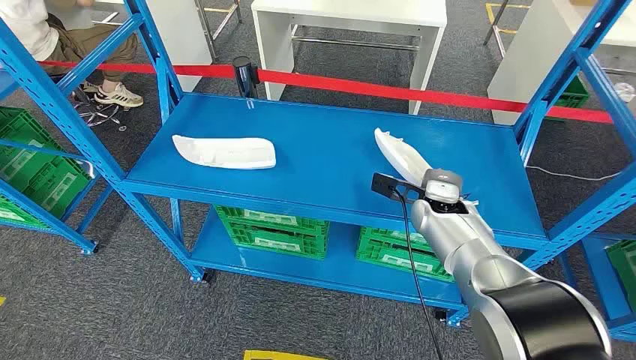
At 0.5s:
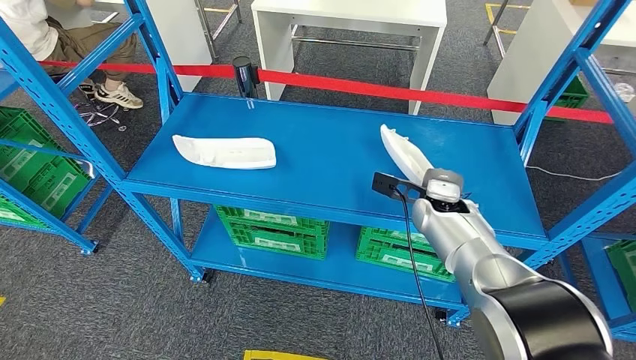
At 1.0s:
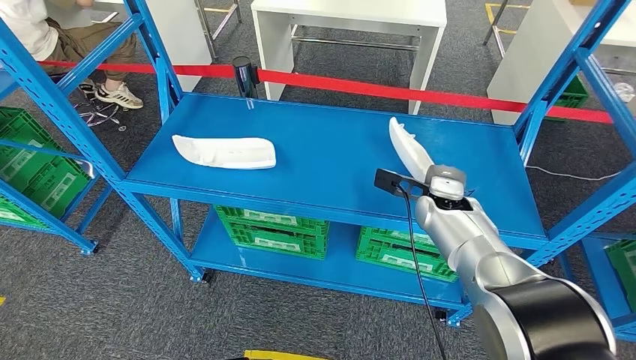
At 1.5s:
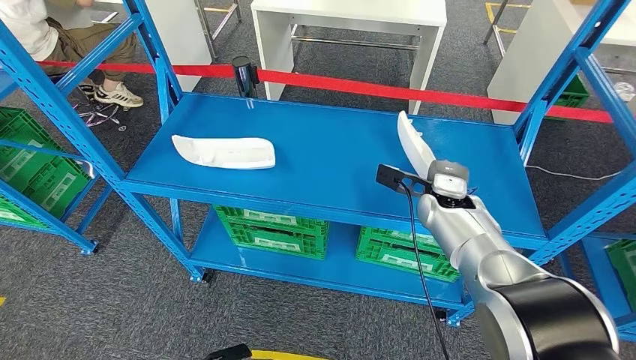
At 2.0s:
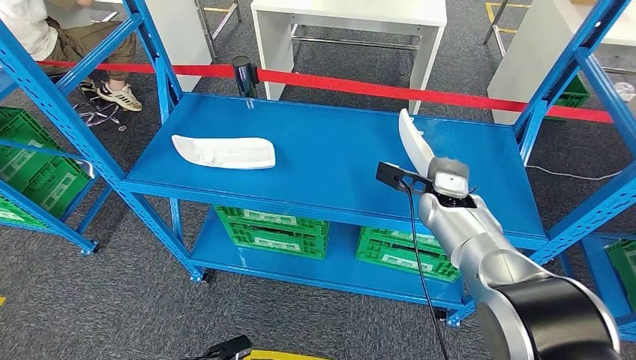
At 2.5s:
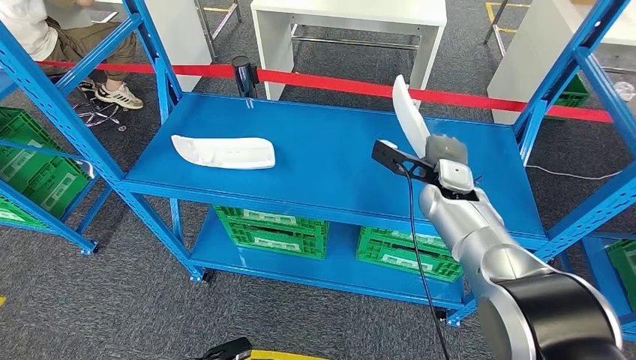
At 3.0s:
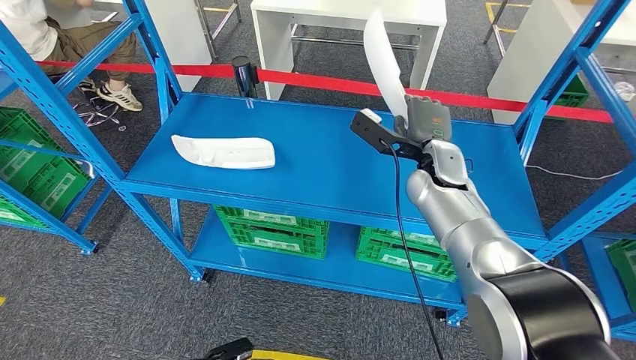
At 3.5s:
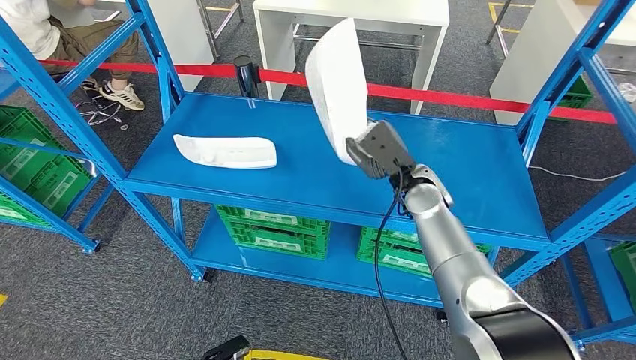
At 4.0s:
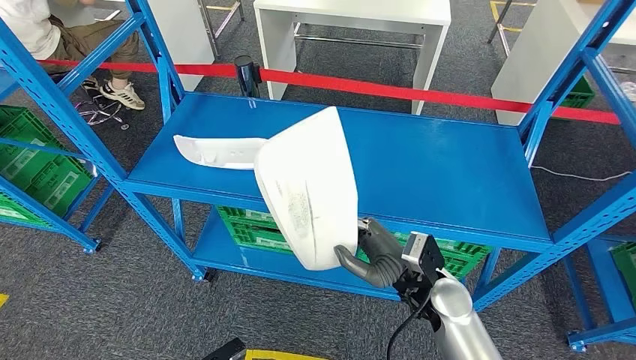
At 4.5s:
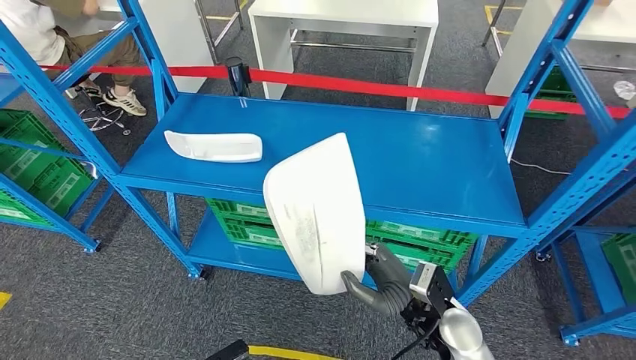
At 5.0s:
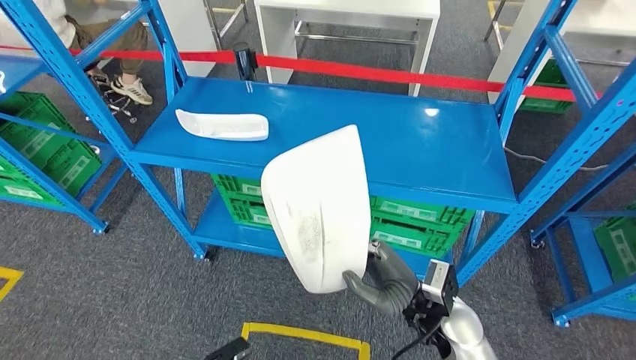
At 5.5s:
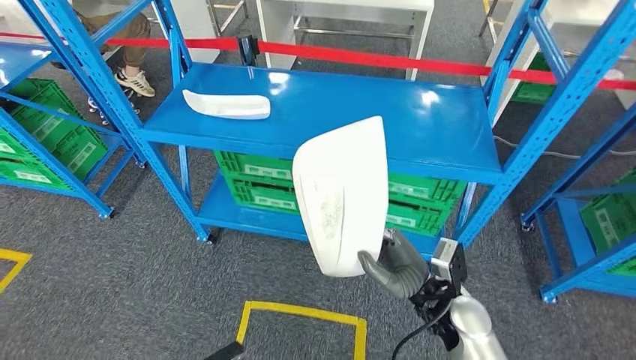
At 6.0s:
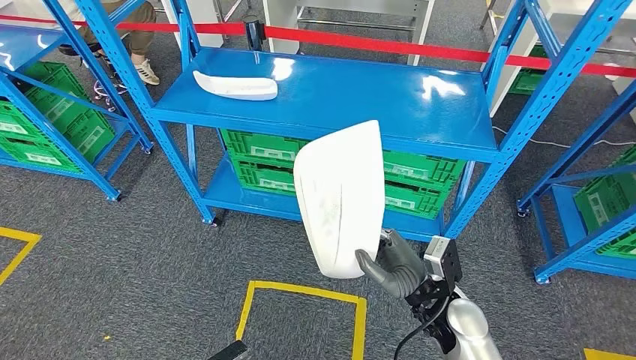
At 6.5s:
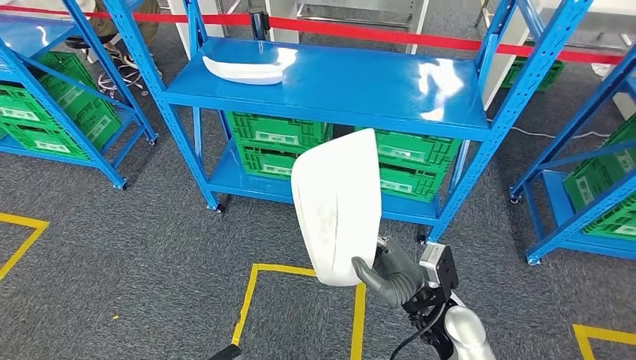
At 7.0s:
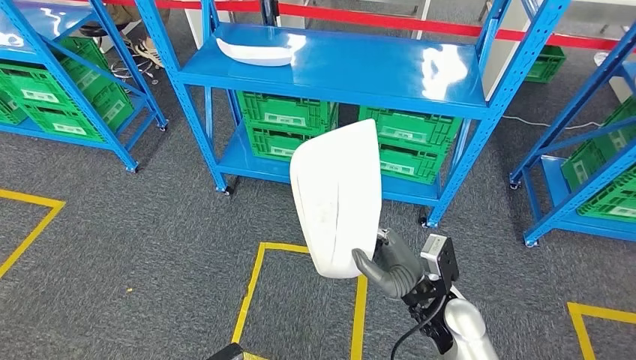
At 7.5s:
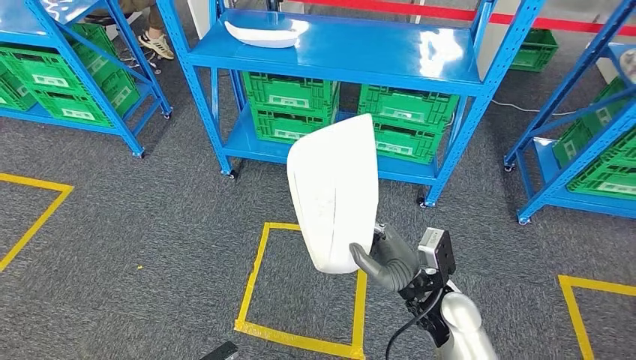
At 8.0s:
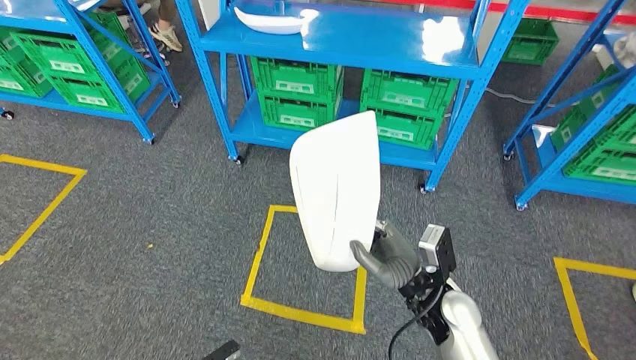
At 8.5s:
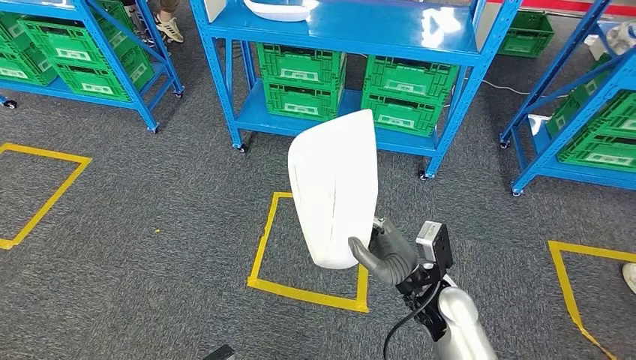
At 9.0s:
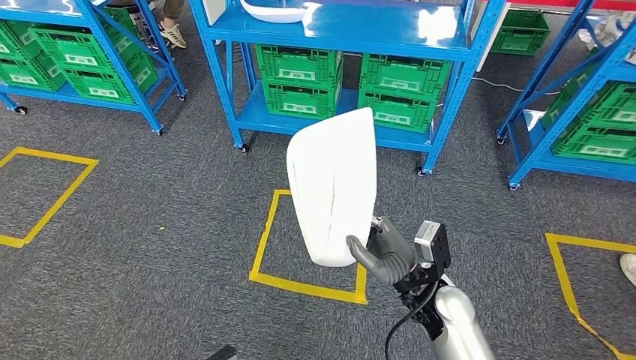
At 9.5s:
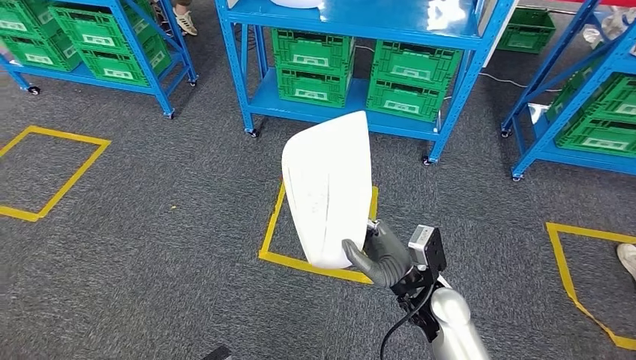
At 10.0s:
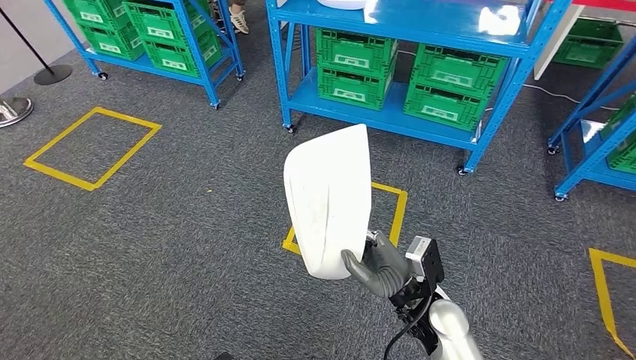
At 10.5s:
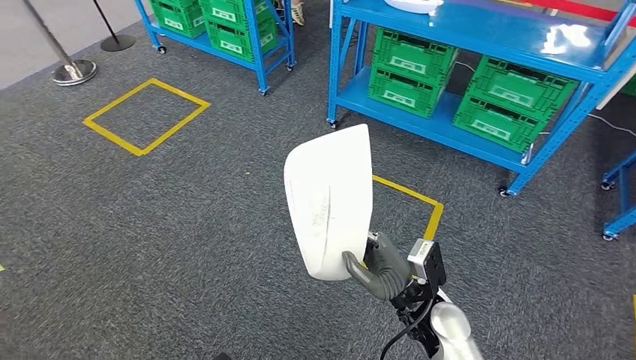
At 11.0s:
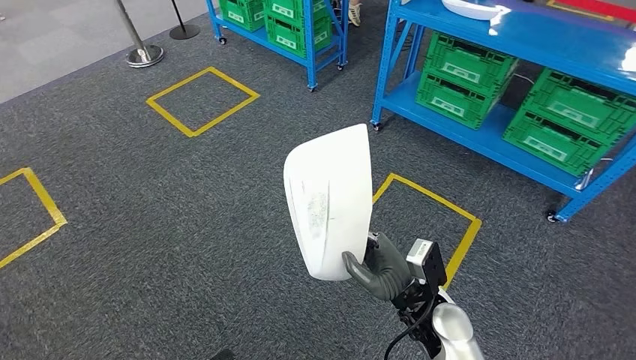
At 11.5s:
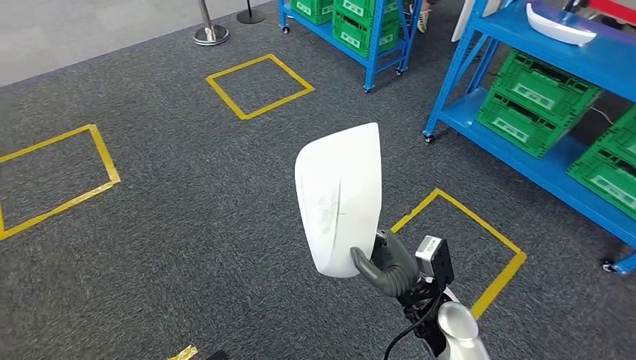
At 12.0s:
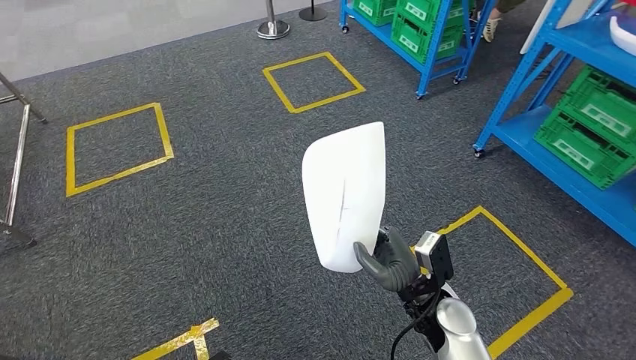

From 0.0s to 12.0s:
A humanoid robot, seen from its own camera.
Step, from 0.0s to 3.5s: Pick up the small component from the shelf.

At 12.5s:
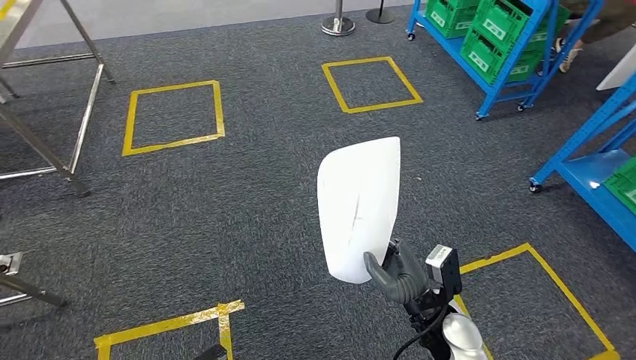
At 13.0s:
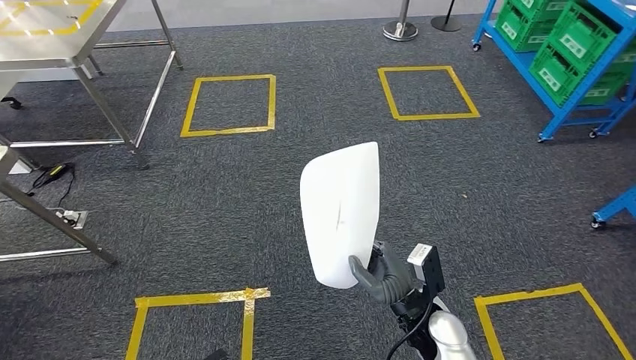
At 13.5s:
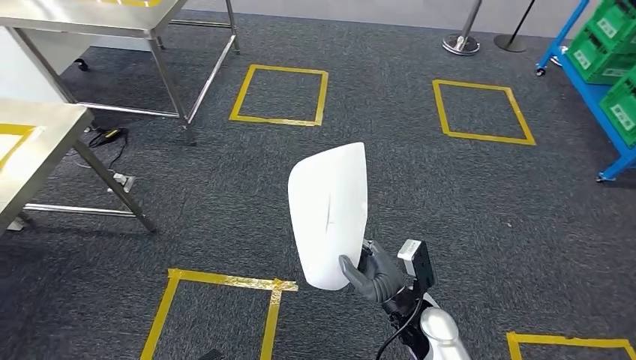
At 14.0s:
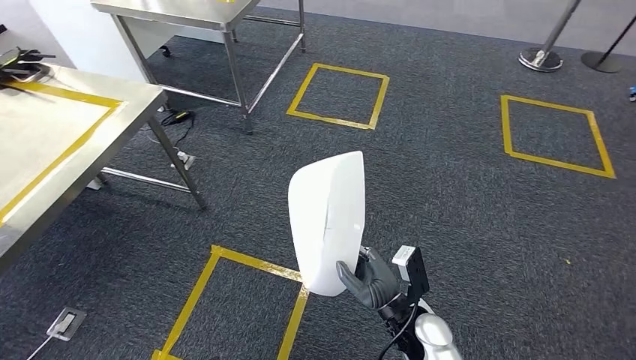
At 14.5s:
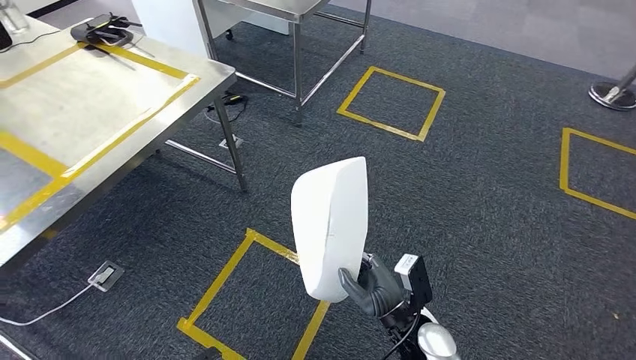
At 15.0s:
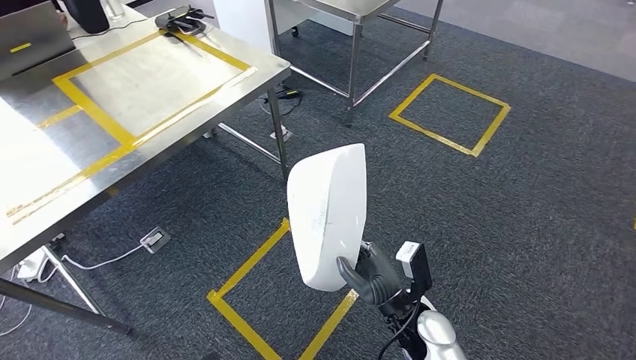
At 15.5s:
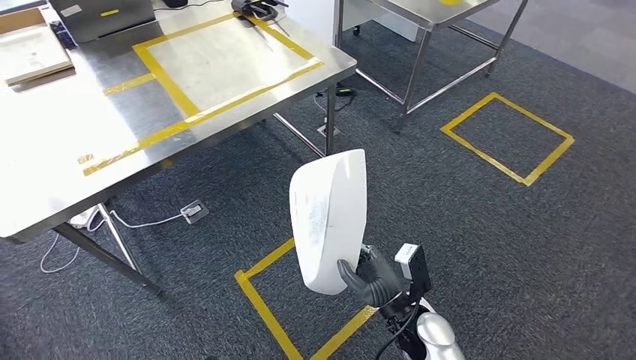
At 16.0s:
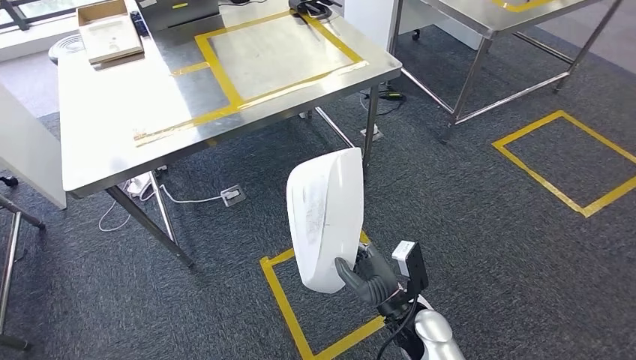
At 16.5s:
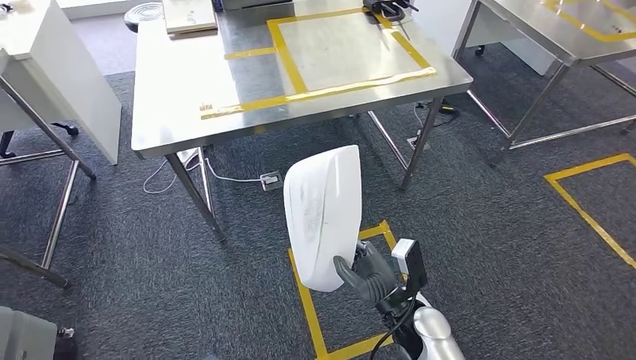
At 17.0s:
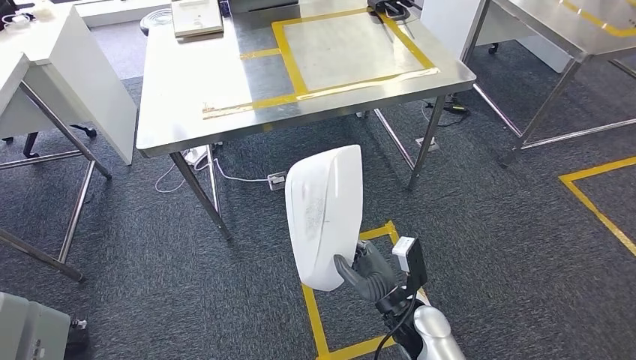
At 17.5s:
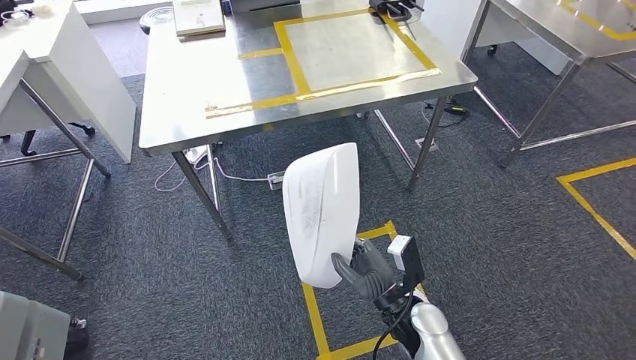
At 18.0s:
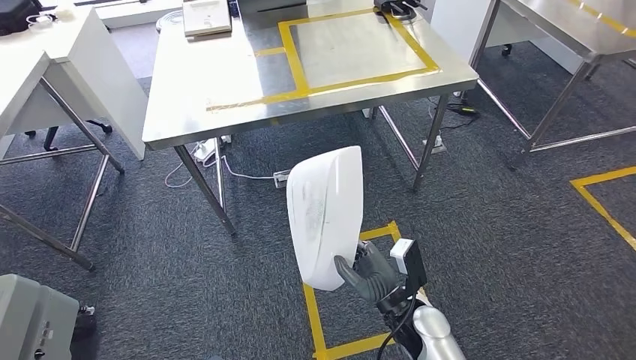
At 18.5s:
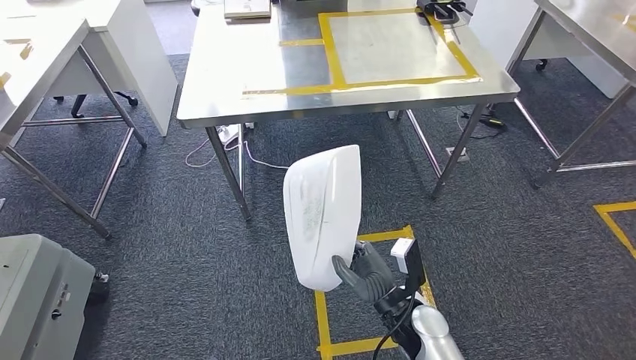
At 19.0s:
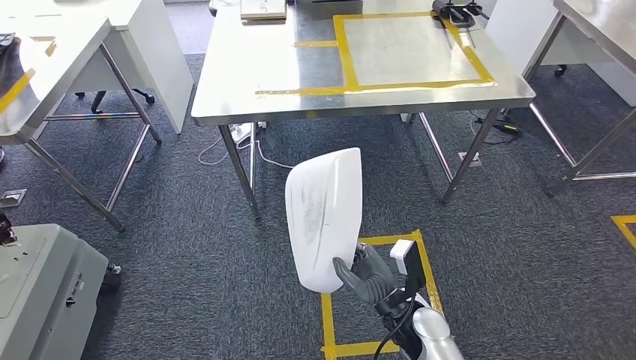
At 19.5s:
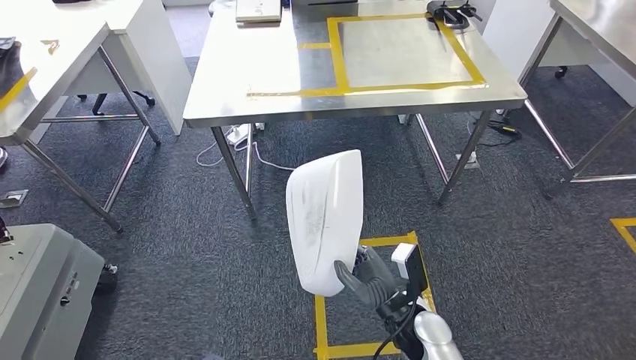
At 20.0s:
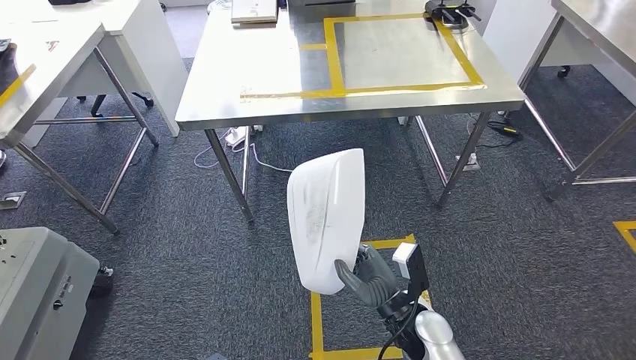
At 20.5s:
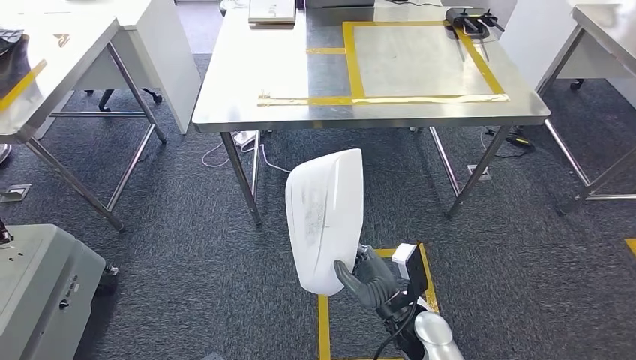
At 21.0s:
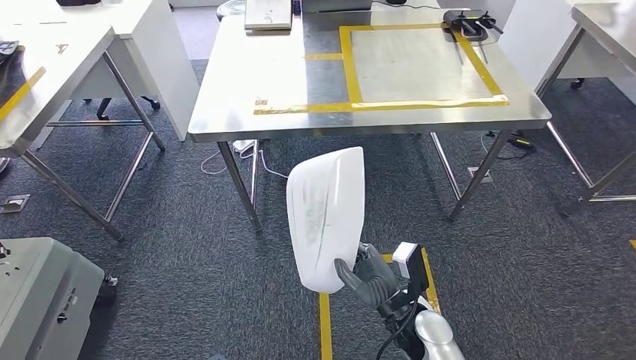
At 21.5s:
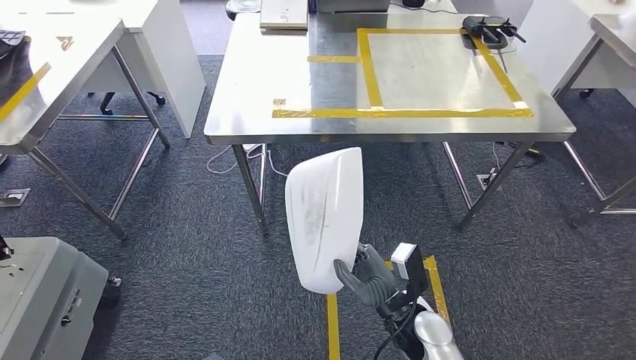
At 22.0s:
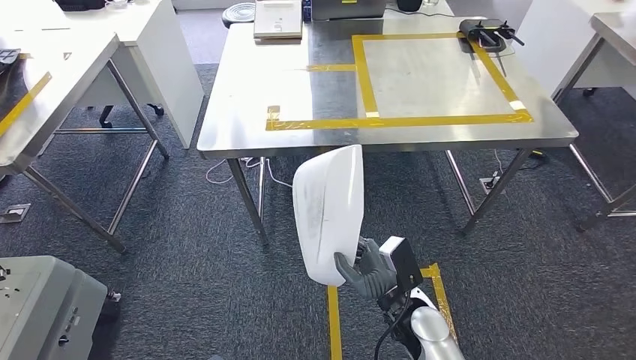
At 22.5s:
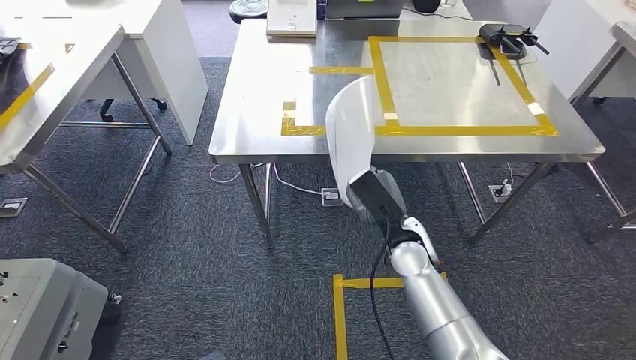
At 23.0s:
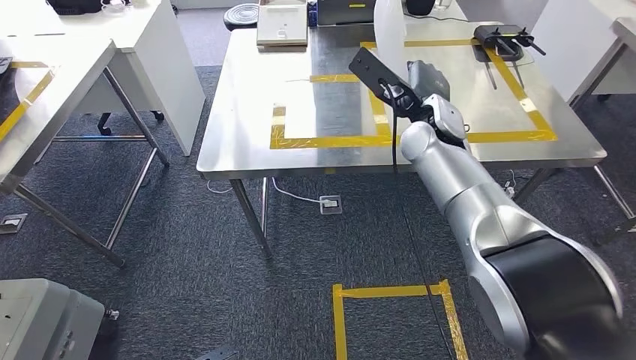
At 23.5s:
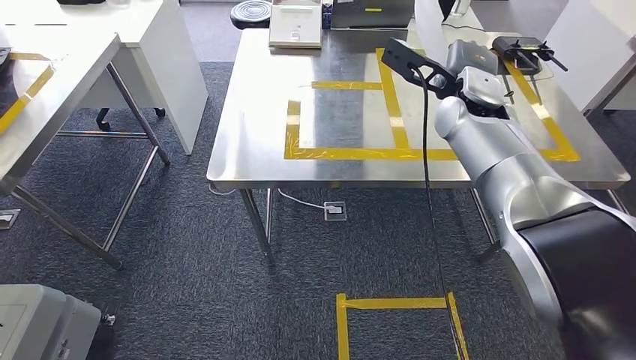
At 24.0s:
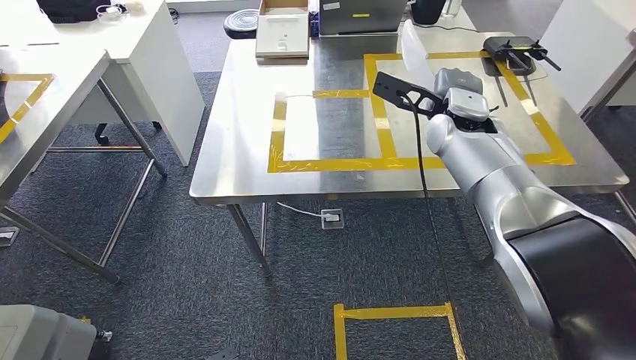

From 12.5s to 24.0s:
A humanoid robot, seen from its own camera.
Step, from 12.5s to 16.0s: Move the small component to the workbench.
